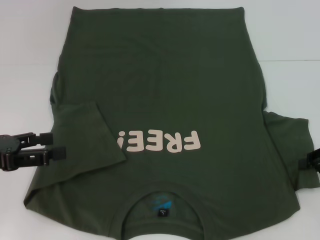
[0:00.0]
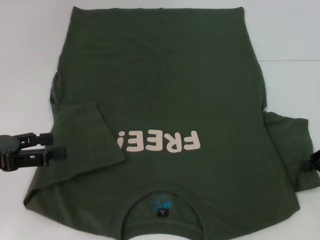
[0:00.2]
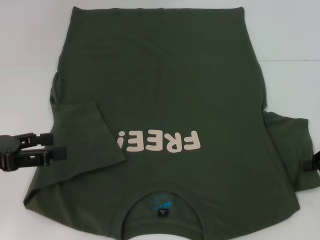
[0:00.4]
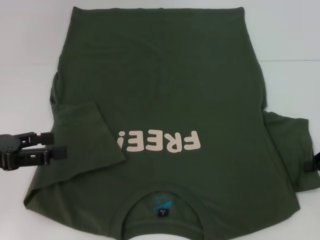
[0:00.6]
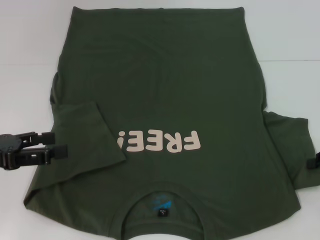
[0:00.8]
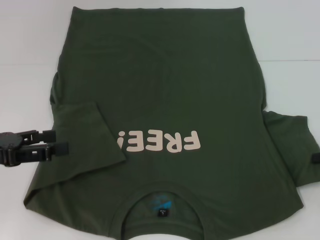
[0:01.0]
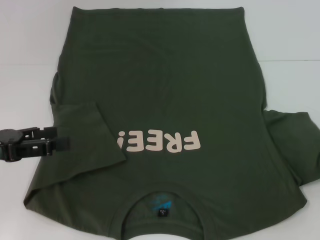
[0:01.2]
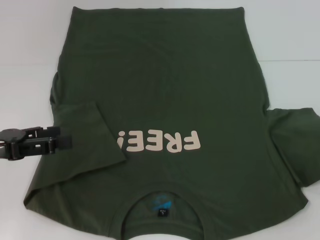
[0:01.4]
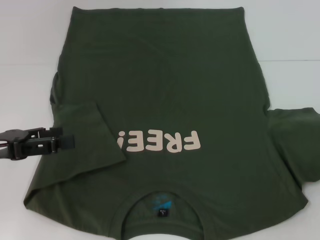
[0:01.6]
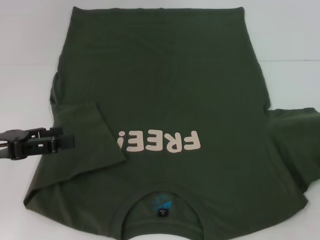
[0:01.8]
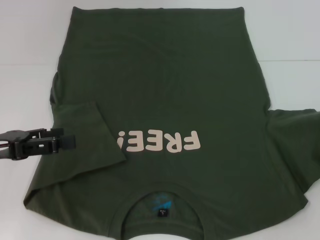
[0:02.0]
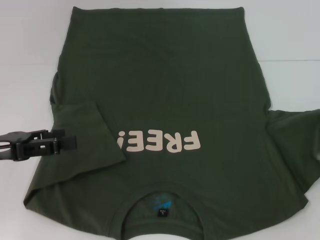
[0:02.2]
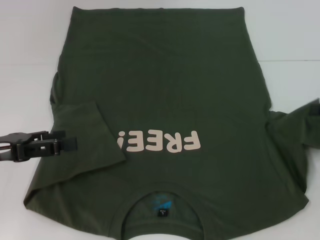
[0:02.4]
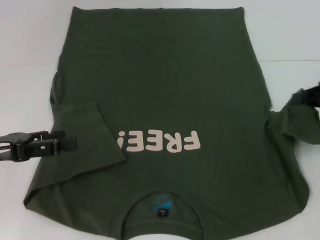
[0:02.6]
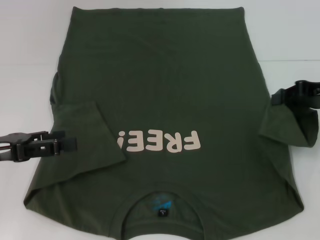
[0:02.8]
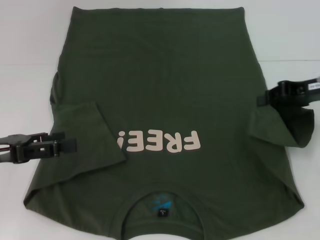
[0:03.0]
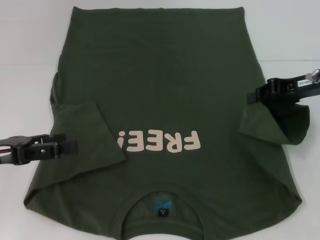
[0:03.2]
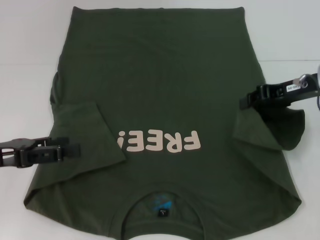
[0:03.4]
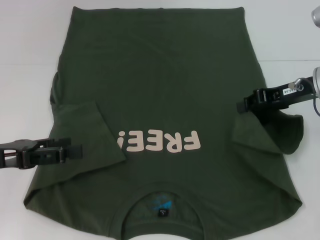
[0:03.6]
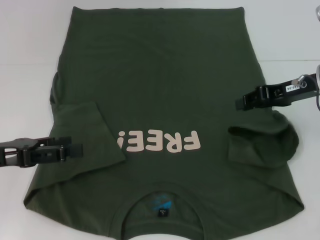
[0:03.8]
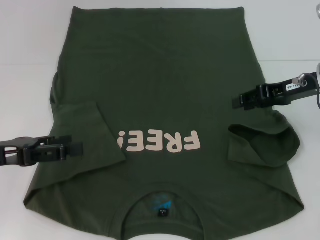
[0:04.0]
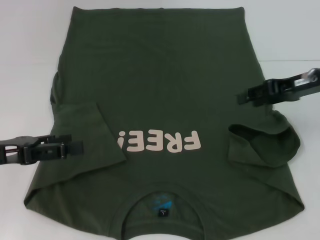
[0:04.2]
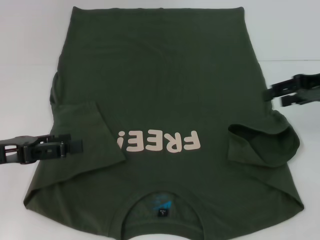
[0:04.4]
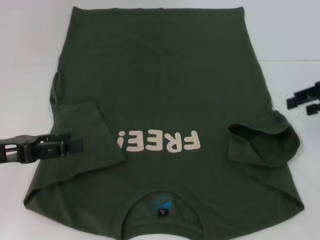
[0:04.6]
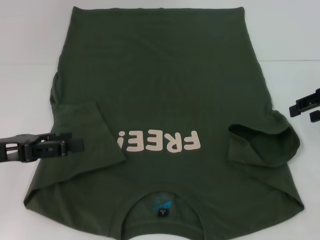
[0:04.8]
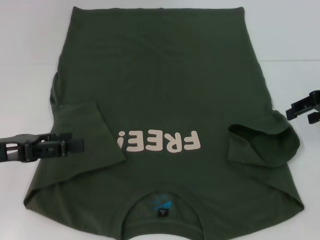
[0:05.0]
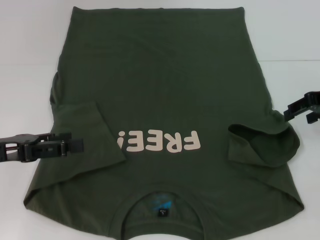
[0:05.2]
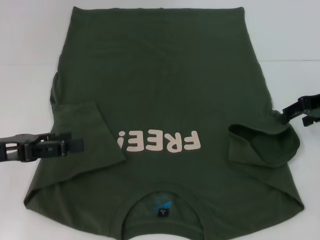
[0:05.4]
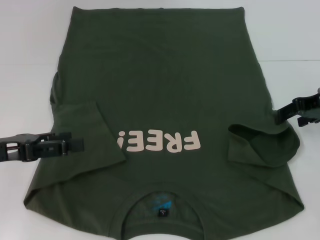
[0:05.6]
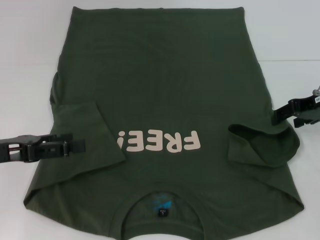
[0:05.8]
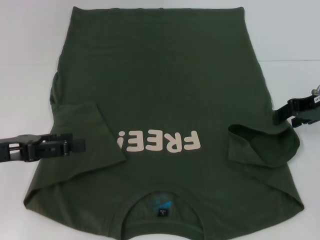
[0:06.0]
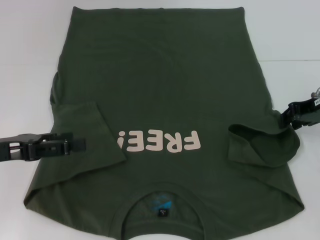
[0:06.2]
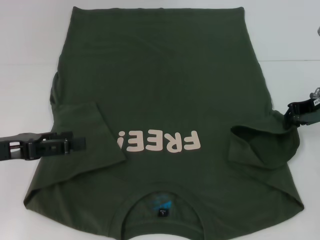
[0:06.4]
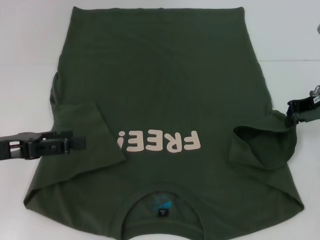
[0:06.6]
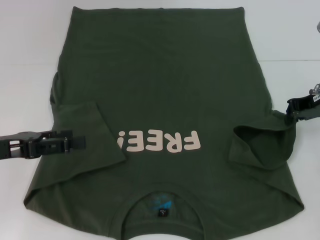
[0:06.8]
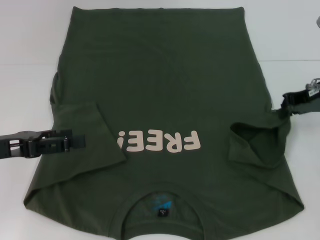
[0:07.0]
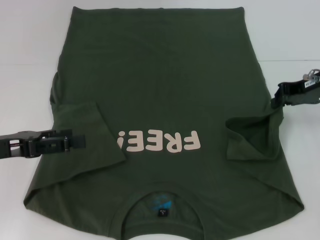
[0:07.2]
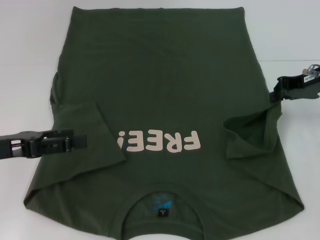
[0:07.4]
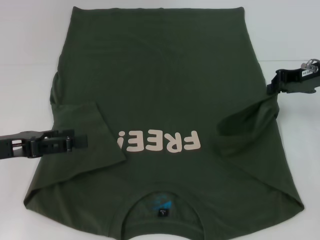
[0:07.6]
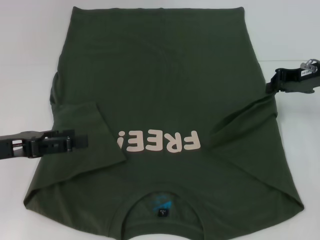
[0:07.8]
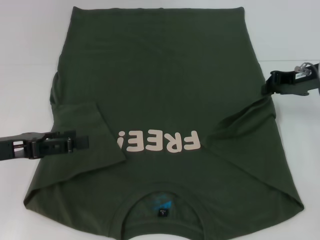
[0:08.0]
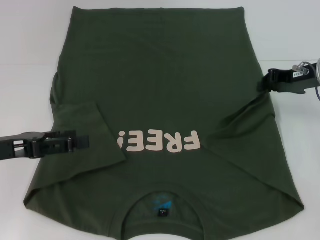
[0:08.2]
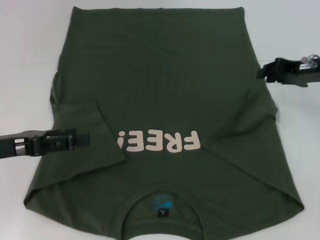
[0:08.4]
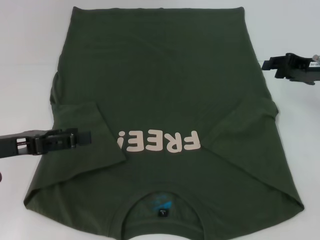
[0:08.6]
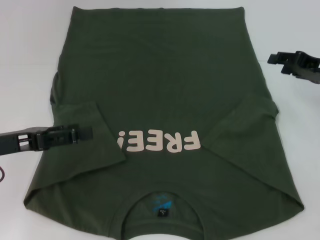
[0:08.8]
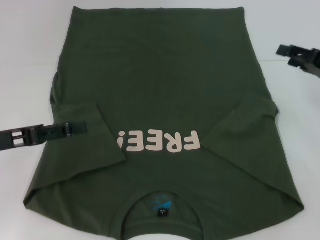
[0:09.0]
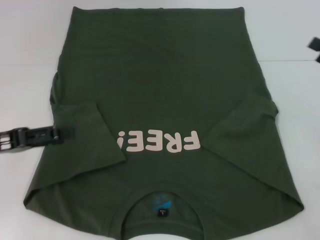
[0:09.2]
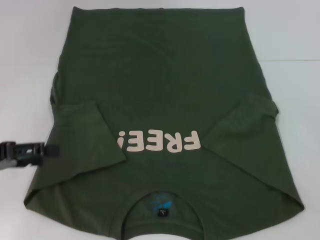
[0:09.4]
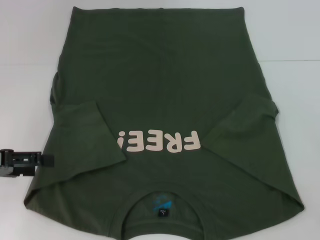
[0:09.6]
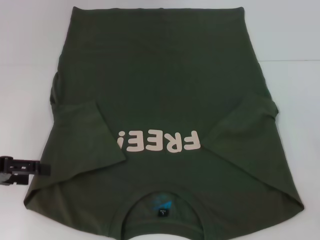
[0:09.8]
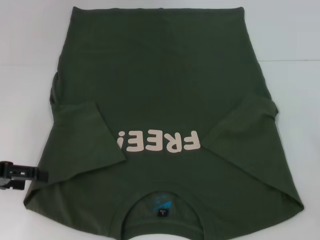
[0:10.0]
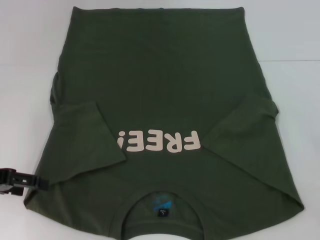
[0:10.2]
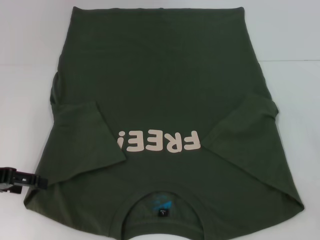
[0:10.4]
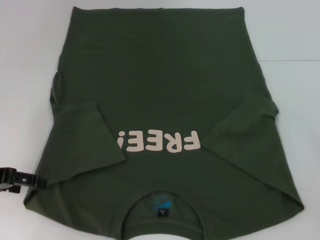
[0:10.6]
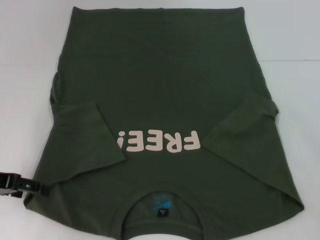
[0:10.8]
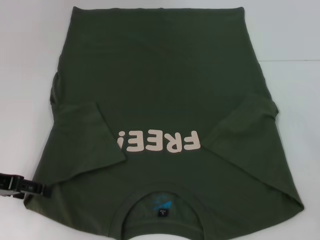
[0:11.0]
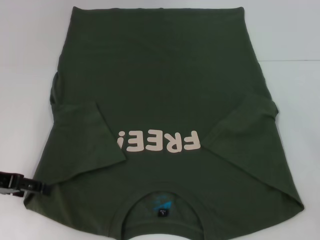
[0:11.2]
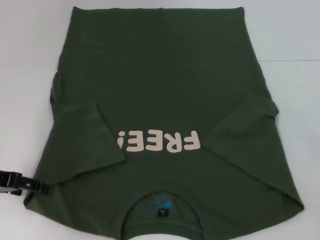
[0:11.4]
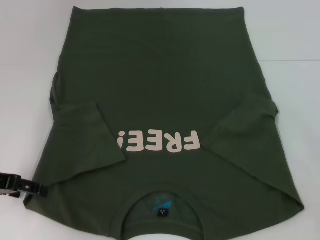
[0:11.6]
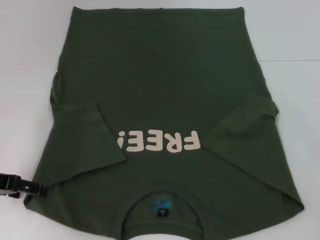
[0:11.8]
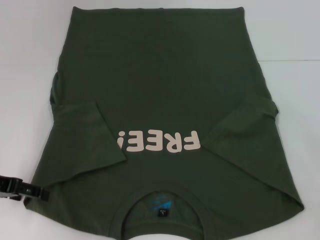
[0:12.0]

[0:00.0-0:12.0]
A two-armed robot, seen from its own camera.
Step, 0:00.0 to 0:08.4: Fold the bottom right sleeve with your right hand.
0:00.0 to 0:01.6: The right gripper moves to the right, some 5 cm, and closes up.
0:01.6 to 0:03.0: The right gripper shifts some 15 cm to the left and forward.
0:03.0 to 0:04.4: The right gripper opens up.
0:04.4 to 0:06.0: The grippers move only a little.
0:06.0 to 0:07.6: The right gripper closes up.
0:07.6 to 0:09.0: The right gripper moves backward and to the right, some 10 cm, and opens.
0:09.0 to 0:10.4: The right gripper travels backward by approximately 10 cm.
0:10.4 to 0:12.0: The grippers move only a little.

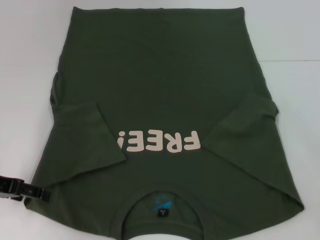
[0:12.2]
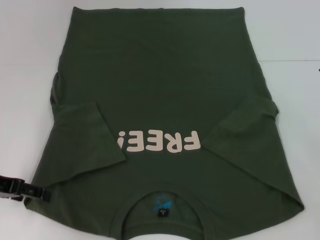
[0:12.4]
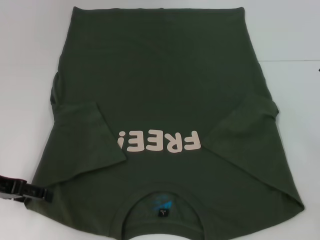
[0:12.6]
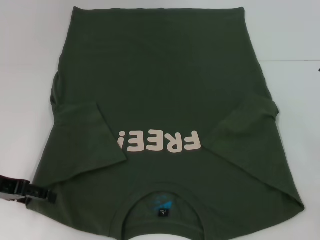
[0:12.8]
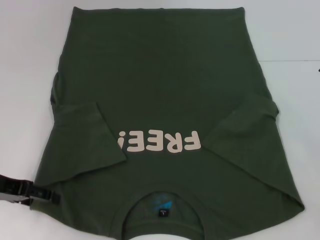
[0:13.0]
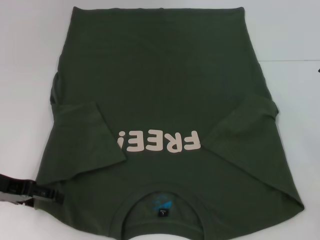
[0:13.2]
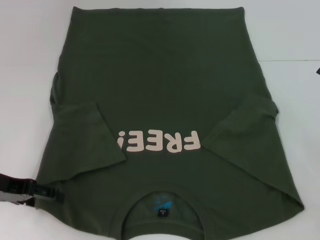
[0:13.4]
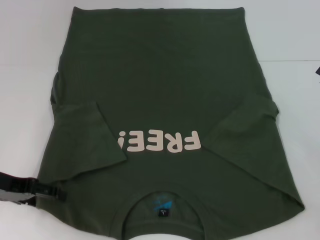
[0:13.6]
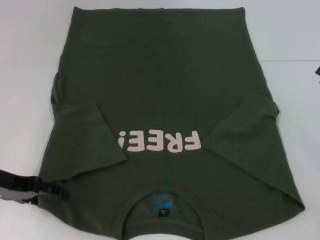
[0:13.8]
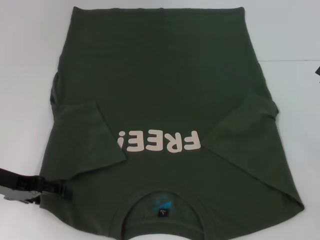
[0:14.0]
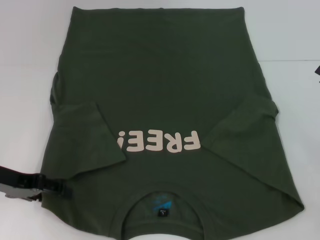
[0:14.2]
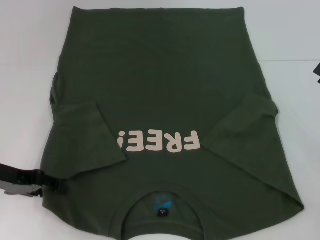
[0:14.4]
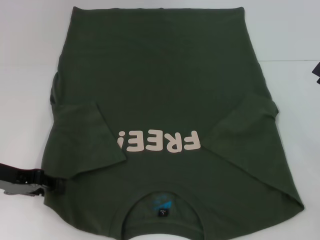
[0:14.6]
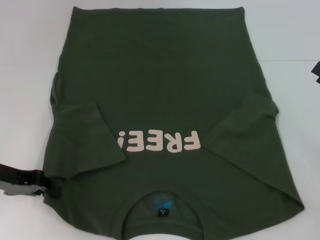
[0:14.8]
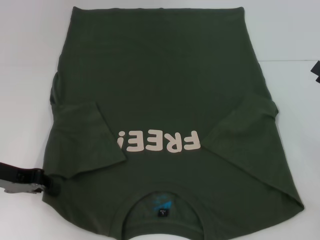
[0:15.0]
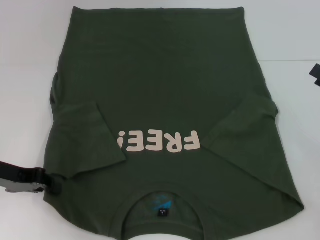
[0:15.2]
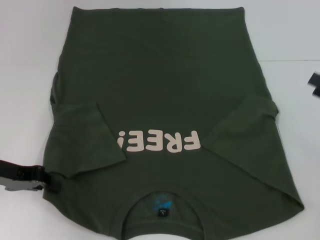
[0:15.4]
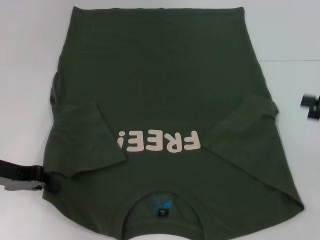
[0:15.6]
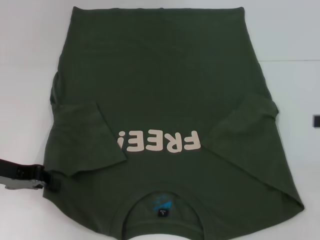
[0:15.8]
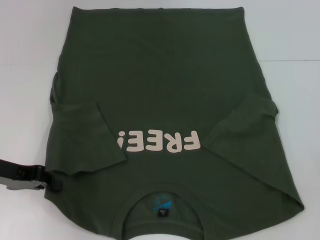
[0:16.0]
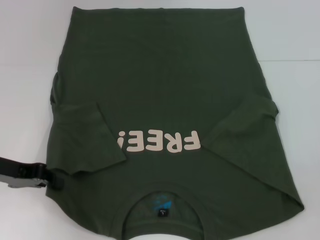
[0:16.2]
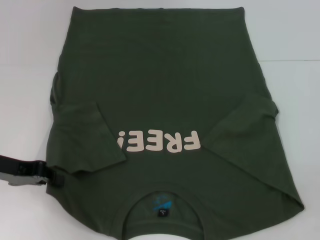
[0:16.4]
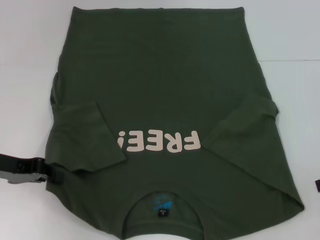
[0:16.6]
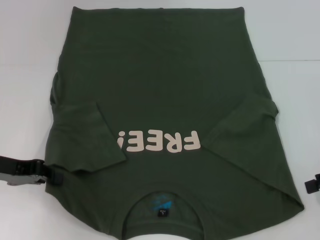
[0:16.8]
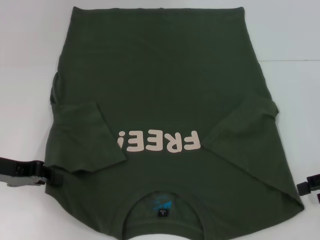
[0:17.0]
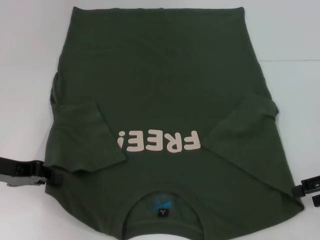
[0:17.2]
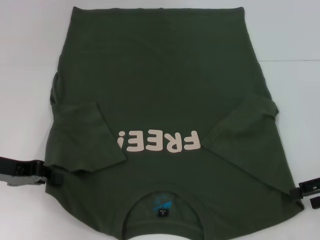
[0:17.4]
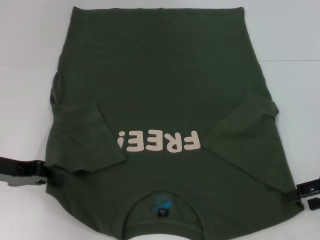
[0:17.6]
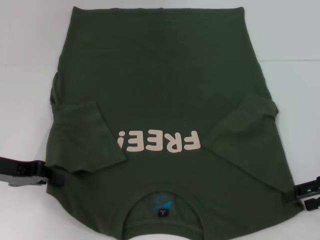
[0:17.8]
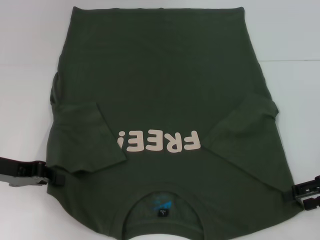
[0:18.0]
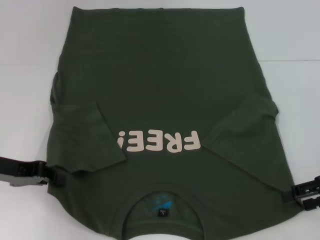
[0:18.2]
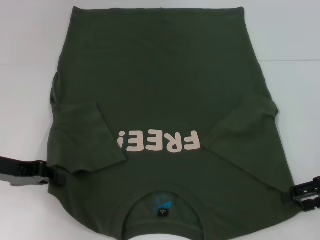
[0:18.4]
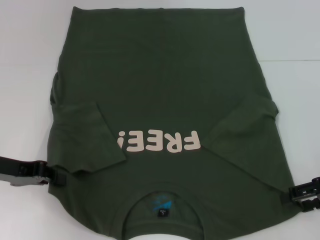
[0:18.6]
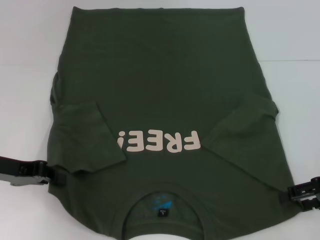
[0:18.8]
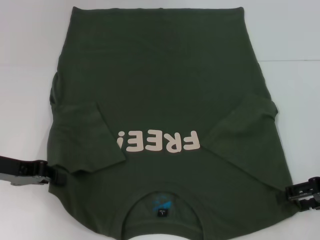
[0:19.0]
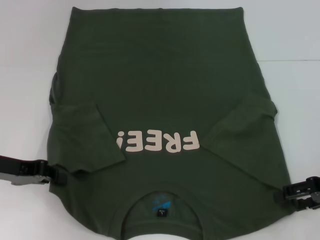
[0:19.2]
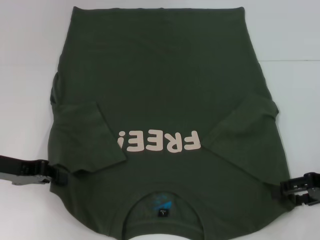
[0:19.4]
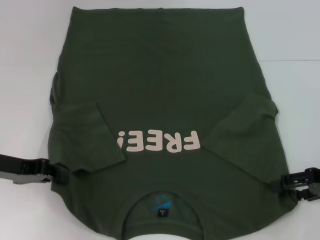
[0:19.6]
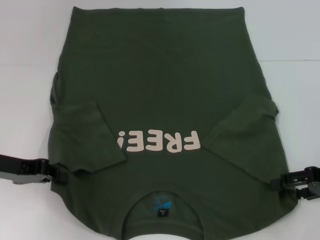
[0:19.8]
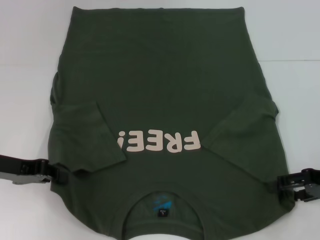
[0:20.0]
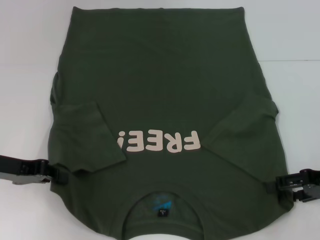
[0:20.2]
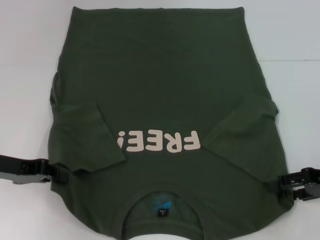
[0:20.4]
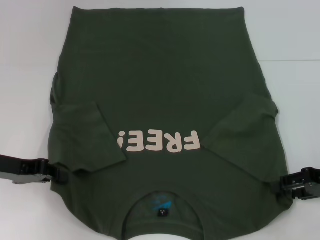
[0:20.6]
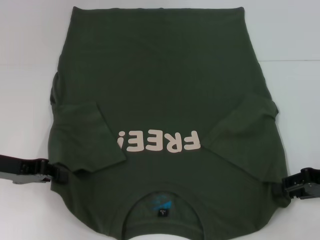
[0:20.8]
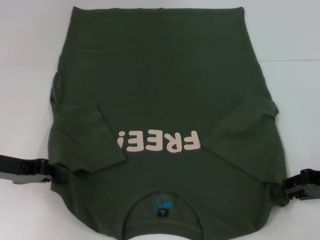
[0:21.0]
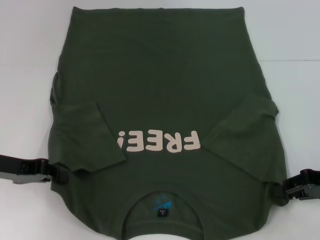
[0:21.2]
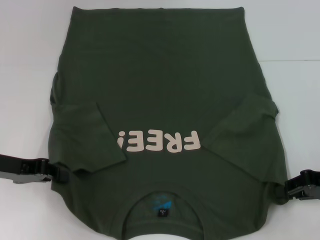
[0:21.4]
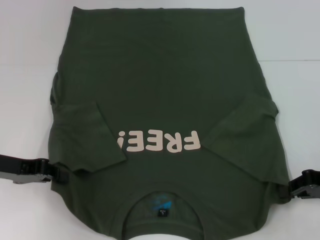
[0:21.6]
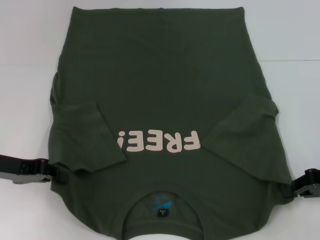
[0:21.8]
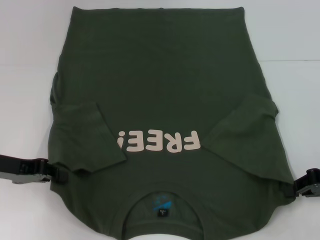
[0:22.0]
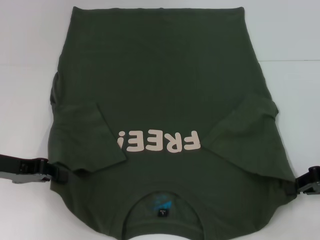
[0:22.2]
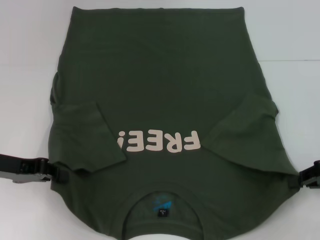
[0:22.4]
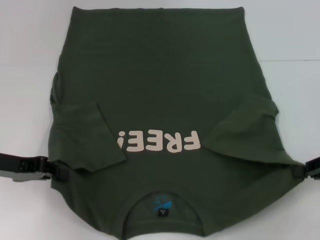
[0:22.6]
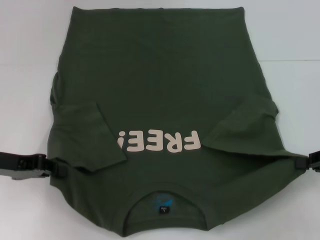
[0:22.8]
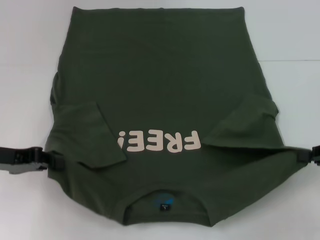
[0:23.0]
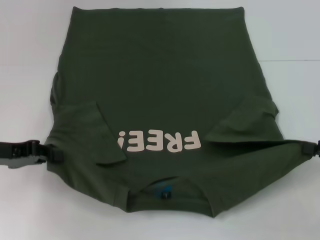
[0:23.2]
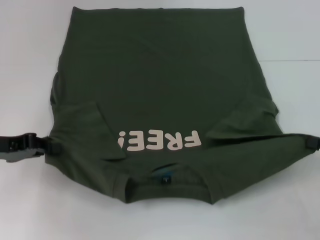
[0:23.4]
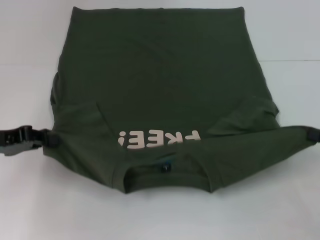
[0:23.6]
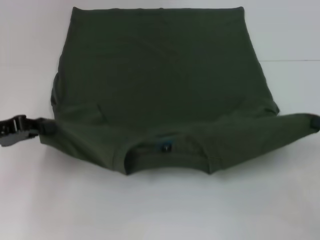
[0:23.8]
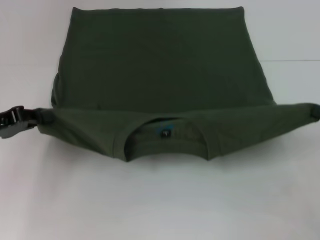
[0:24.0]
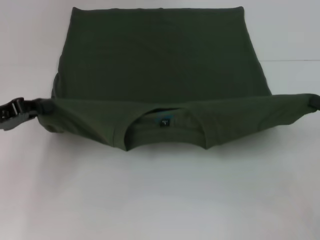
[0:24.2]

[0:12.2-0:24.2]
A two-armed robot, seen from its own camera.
Step, 0:12.2 to 0:14.8: Grab the bottom left corner with your left hand.
Step, 0:15.0 to 0:20.8: Grab the bottom right corner with your right hand.
0:12.2 to 0:13.8: The grippers stay close to where they were, moving slightly.
0:13.8 to 0:15.2: The left gripper closes up.
0:16.6 to 0:18.2: The right gripper shifts by about 5 cm.
0:18.2 to 0:19.8: There are only small adjustments of the grippers.
0:19.8 to 0:21.2: The right gripper closes up.
0:21.2 to 0:22.6: The grippers stay close to where they were, moving slightly.
